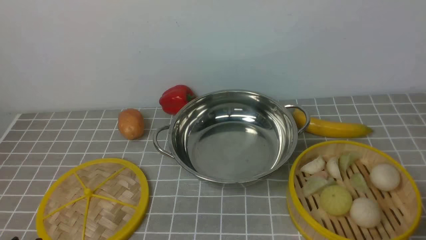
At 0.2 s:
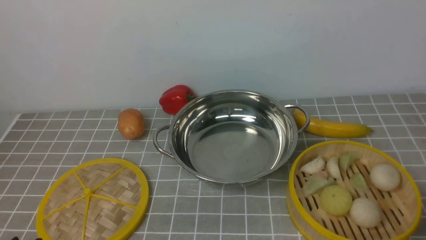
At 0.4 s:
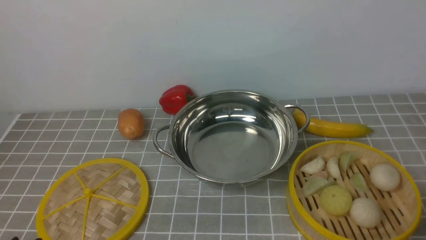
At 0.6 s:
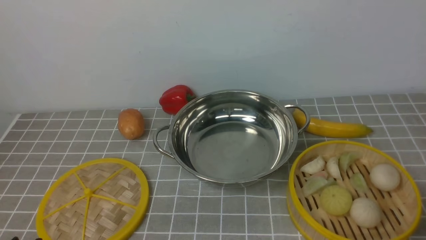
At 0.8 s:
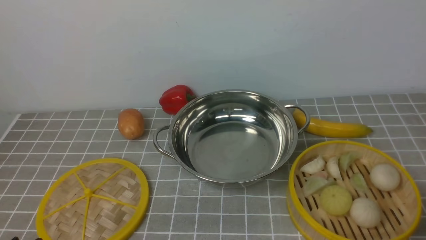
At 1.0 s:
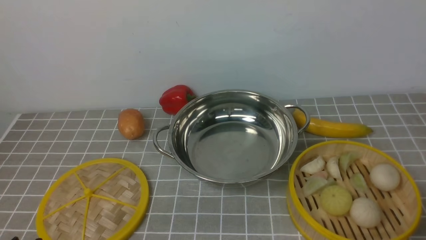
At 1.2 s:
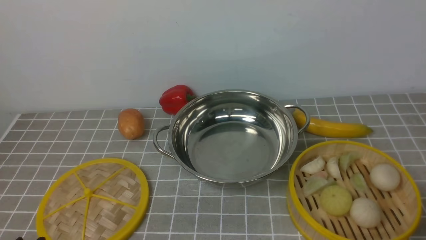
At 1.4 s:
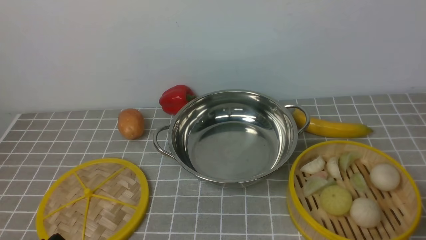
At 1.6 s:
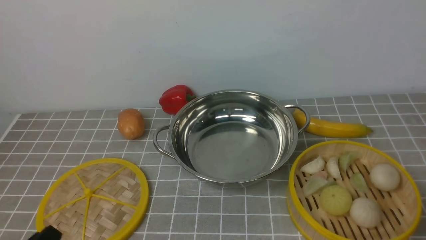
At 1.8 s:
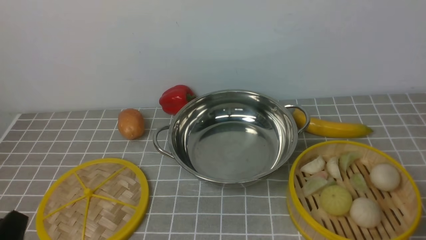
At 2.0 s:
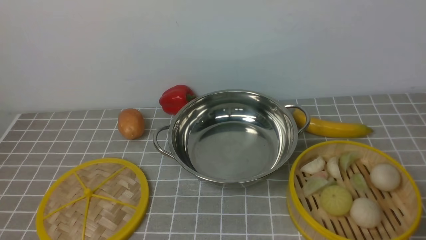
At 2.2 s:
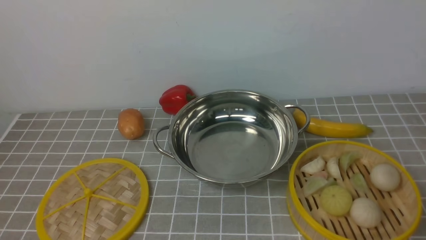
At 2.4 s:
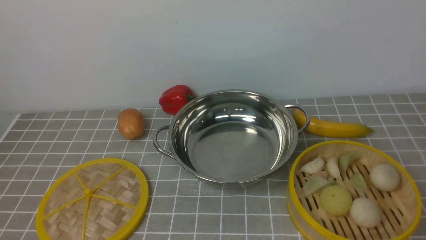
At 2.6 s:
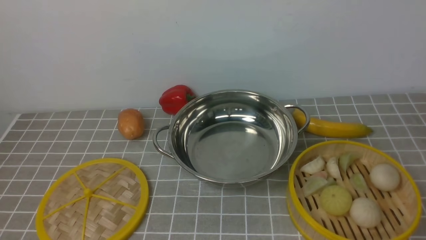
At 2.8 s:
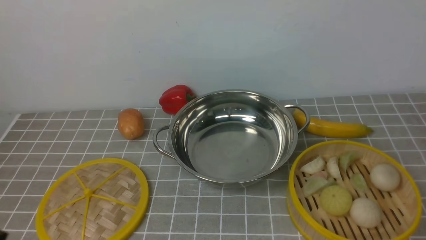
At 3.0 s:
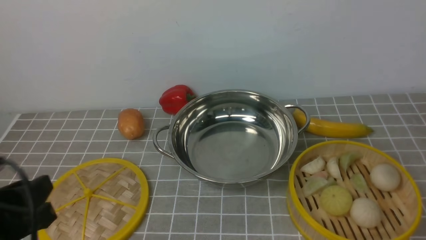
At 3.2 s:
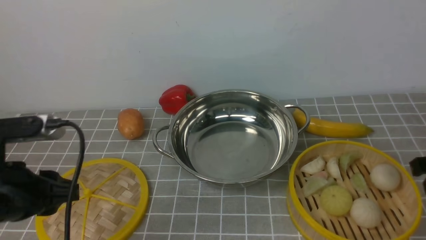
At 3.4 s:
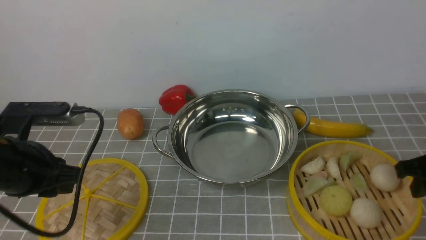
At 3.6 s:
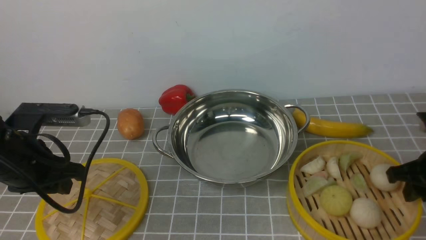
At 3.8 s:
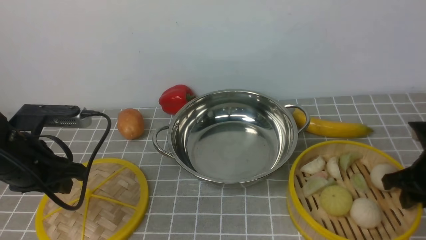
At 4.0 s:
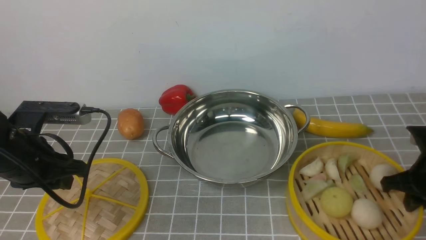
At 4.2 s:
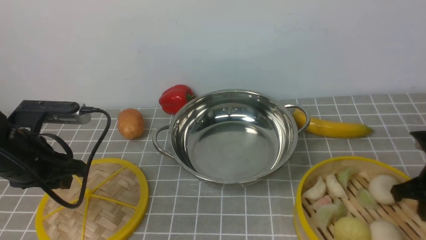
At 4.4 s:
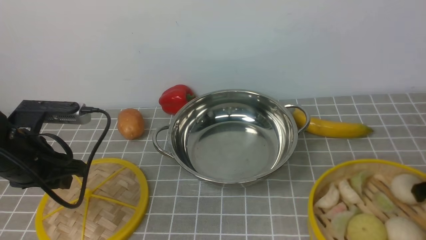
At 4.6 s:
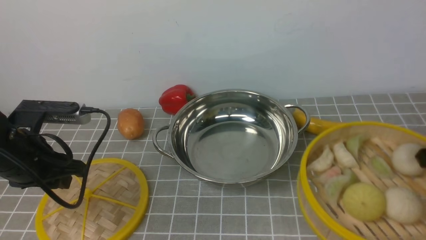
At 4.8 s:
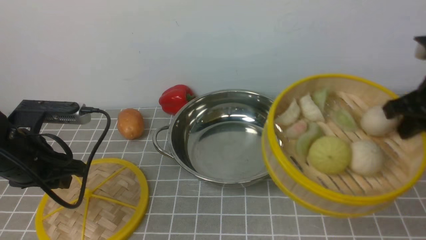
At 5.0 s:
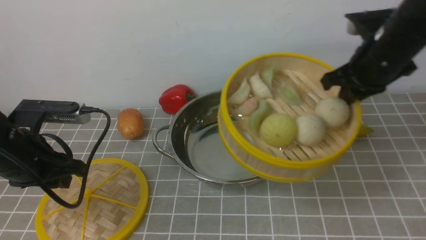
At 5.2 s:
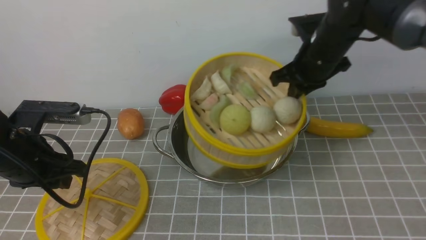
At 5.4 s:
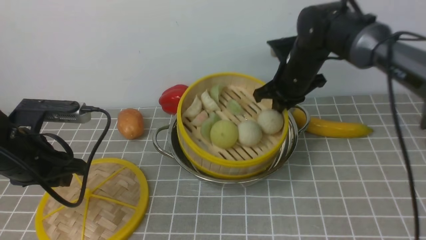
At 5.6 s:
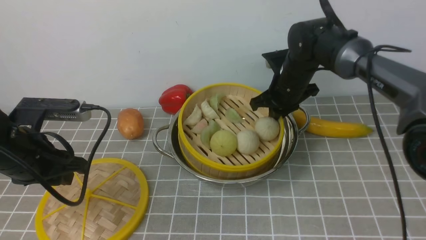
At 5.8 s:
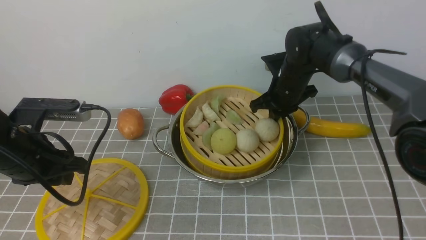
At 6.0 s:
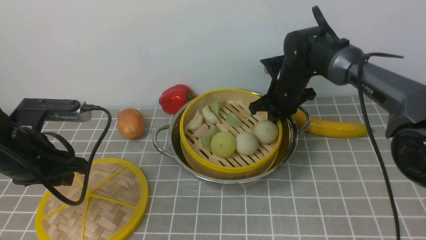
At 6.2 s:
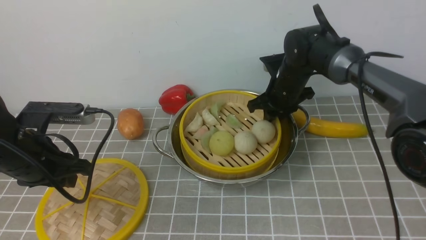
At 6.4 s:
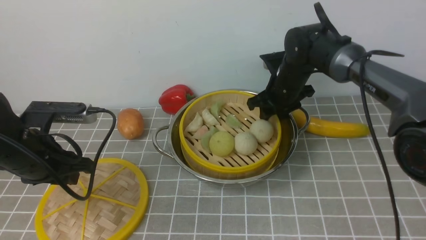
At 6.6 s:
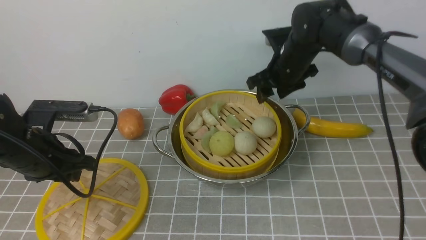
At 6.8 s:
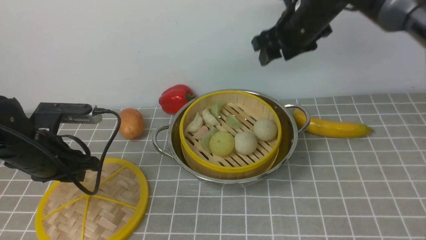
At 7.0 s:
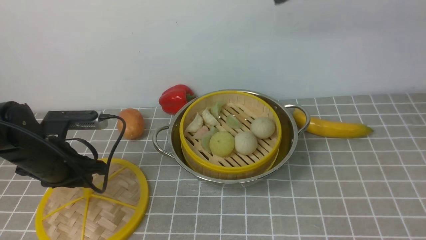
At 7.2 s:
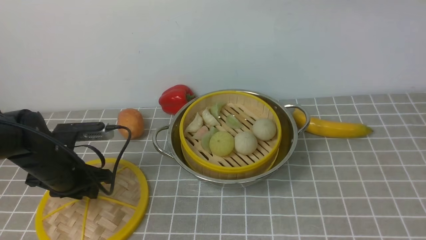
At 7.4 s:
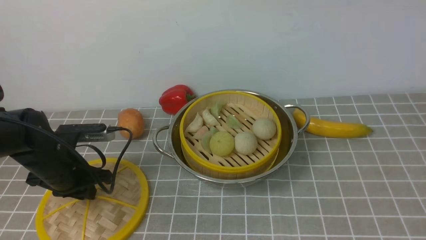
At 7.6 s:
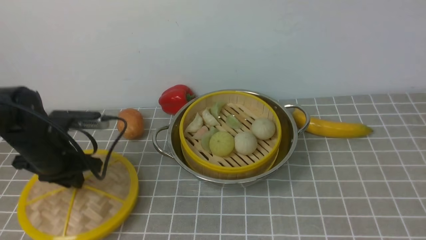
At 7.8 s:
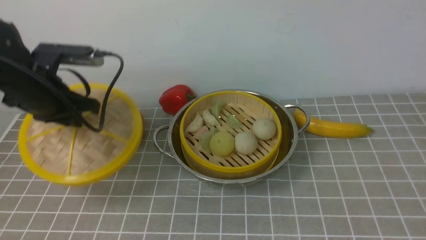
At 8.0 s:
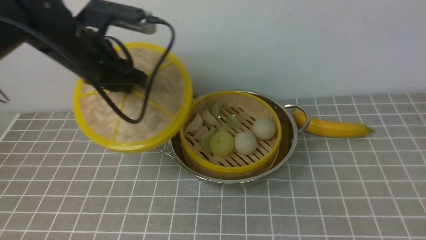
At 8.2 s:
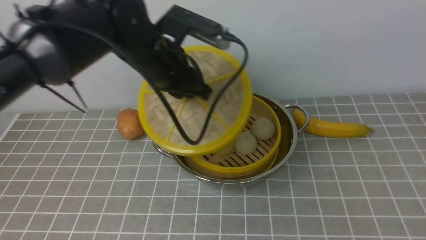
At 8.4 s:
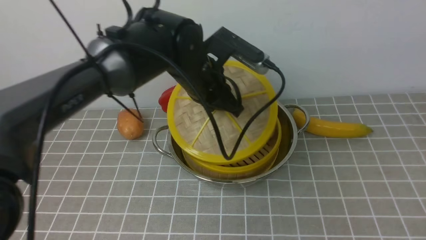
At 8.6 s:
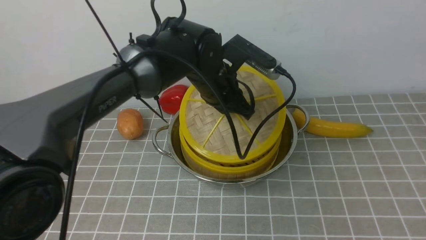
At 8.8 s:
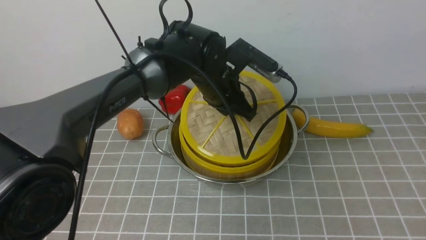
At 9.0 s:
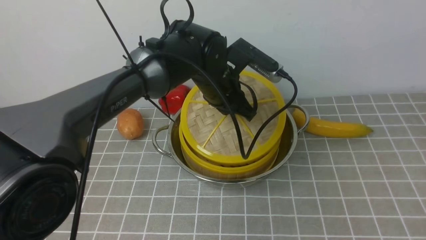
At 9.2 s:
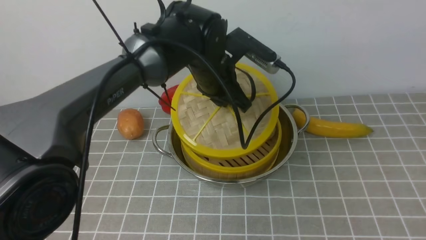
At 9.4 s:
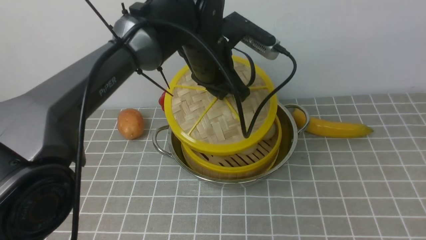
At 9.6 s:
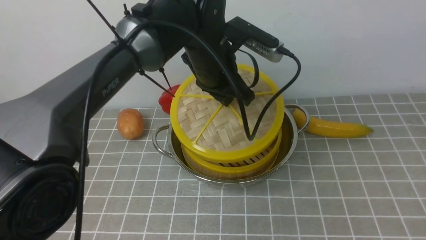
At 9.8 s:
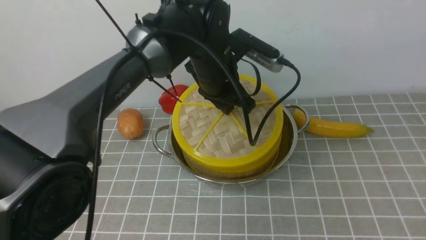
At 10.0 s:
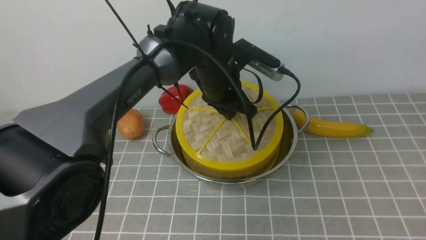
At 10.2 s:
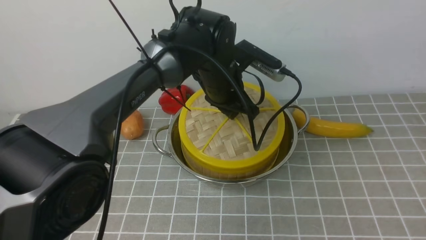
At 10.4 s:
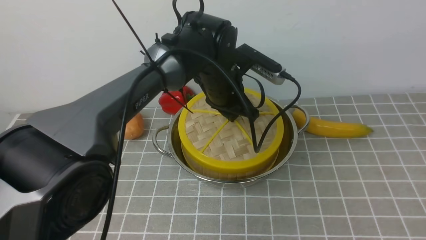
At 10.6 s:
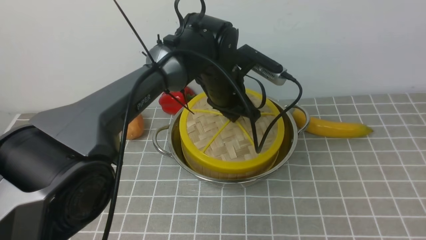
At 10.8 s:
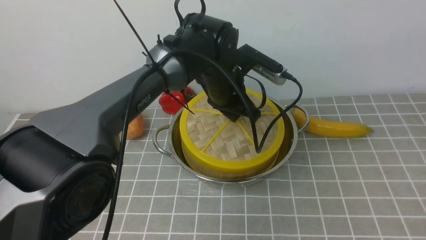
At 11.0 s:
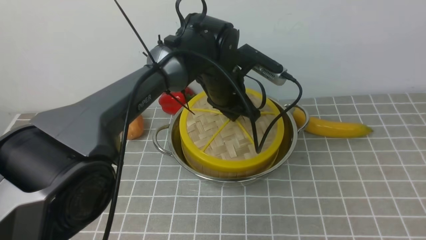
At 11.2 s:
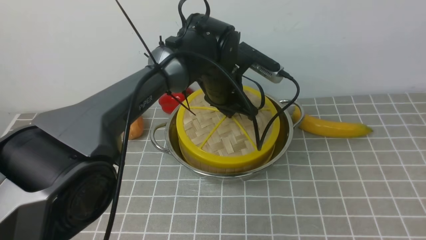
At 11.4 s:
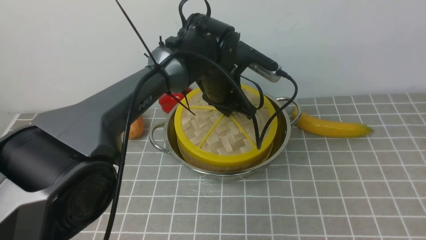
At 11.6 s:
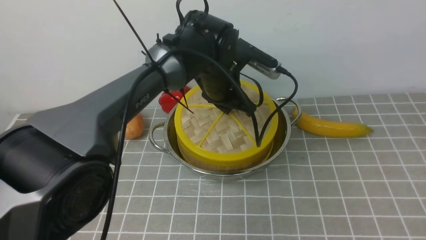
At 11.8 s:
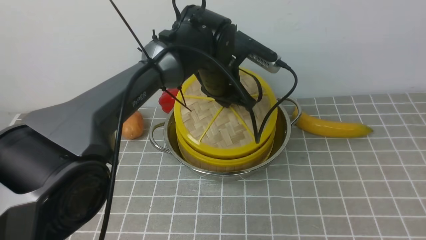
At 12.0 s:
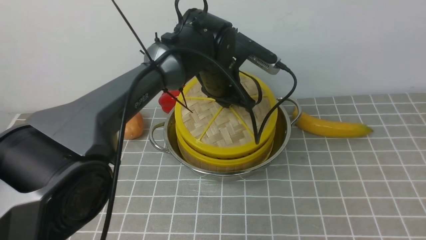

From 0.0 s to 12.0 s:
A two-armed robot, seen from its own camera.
Task of the whole recording: place the steamer in the pot on the grey tablecloth, and put the lid on the steamer.
Step, from 0.0 s to 4.2 s: use the right arm to lift the steamer closest to it.
Step, from 4.4 s to 6.4 s: use the right arm to put the steamer into the iron steamer pot in the middle.
From 1.6 s to 3.0 s: The left gripper shifts roughly 10 cm upward.
From 3.0 s to 4.4 s: The right gripper goes roughly 15 cm downward and forward, and closes up. Meanwhile the left gripper is displaced forward by about 15 cm.
From 4.4 s to 6.0 s: The right gripper shifts about 30 cm forward and to the left.
From 6.0 s to 7.6 s: The left gripper goes roughly 10 cm forward and downward, and closes; the right gripper shifts some 50 cm upward and backward, and opens its fingers.
From 7.6 s to 9.0 s: The right gripper heads backward, covering approximately 10 cm. Meanwhile the left gripper goes some 25 cm to the right.
From 10.4 s to 12.0 s: The grippers stay close to where they were, moving slightly.

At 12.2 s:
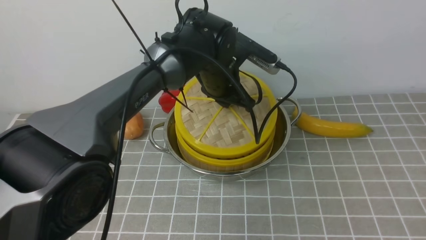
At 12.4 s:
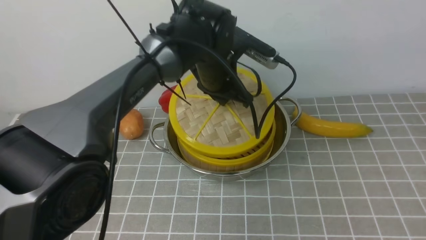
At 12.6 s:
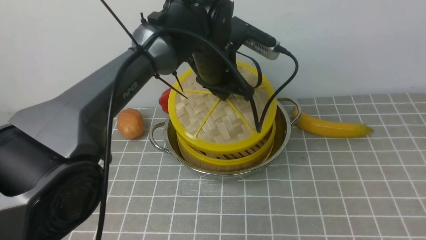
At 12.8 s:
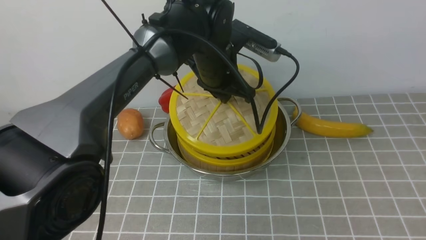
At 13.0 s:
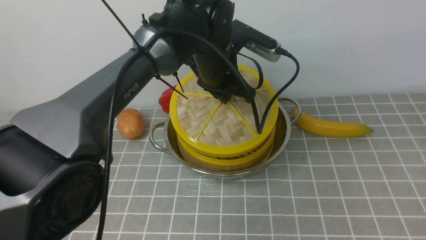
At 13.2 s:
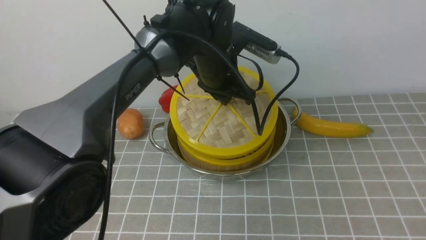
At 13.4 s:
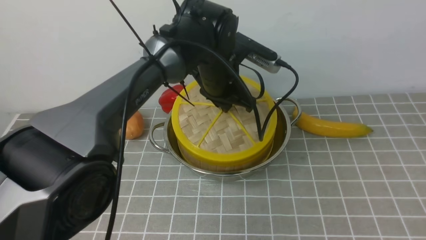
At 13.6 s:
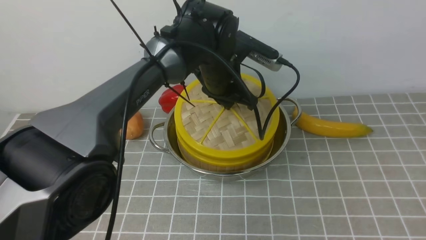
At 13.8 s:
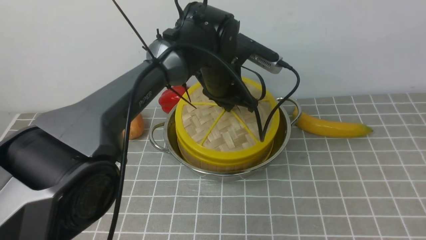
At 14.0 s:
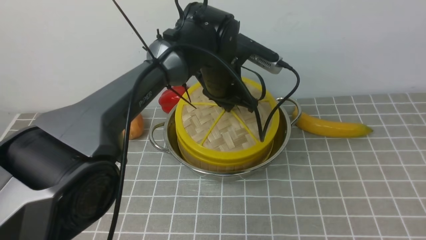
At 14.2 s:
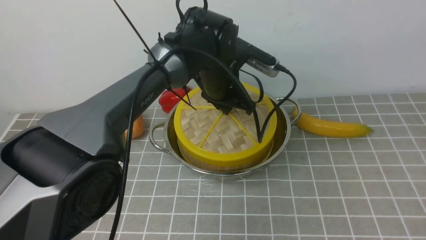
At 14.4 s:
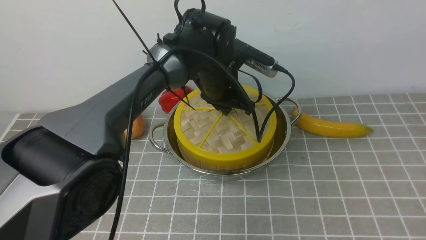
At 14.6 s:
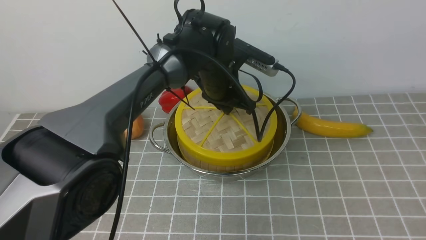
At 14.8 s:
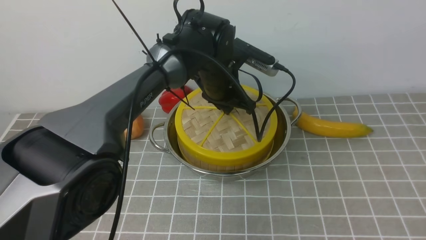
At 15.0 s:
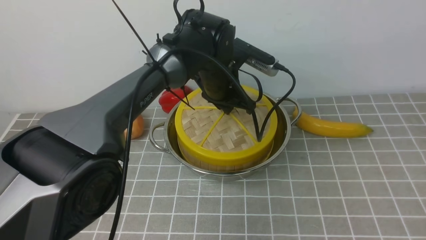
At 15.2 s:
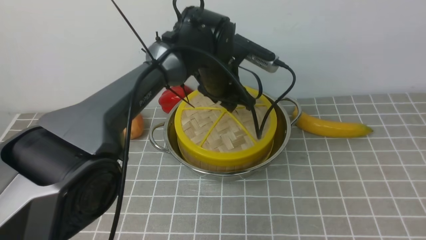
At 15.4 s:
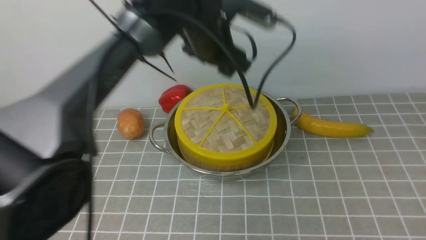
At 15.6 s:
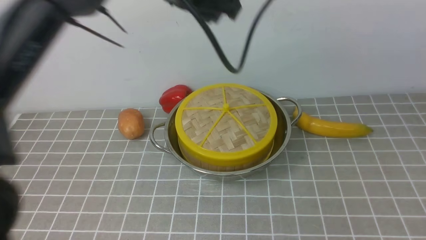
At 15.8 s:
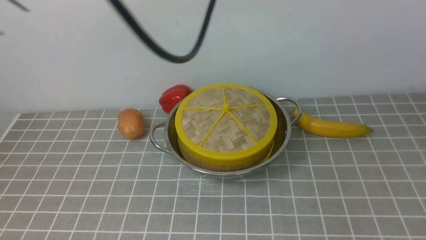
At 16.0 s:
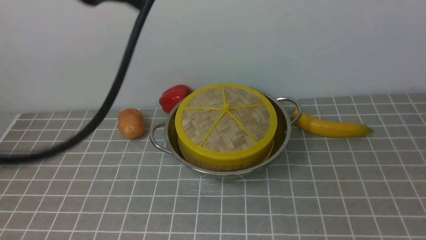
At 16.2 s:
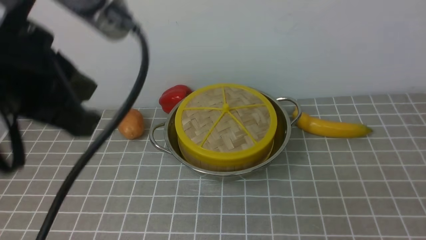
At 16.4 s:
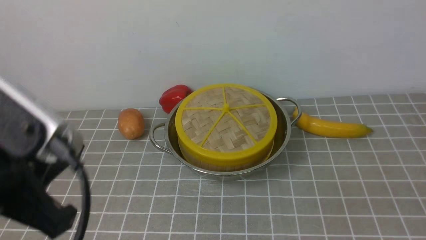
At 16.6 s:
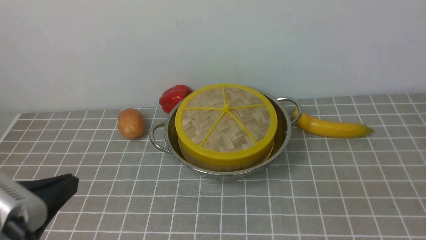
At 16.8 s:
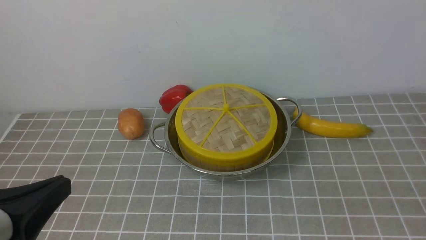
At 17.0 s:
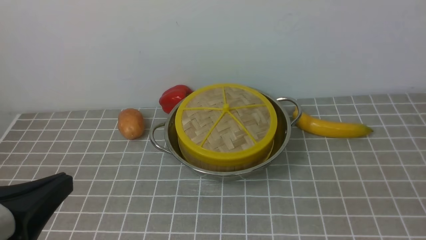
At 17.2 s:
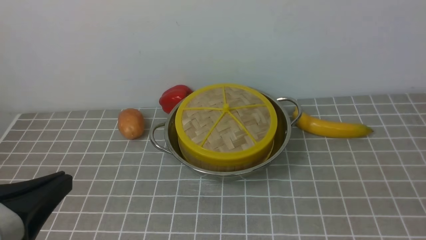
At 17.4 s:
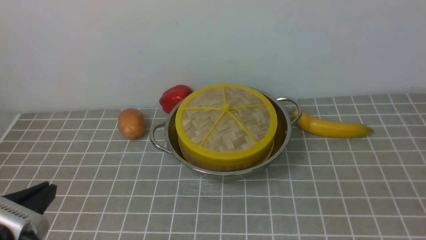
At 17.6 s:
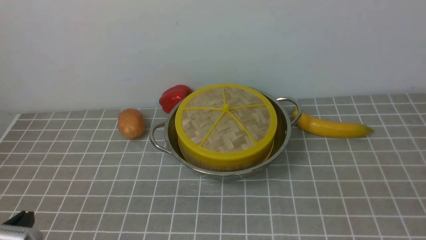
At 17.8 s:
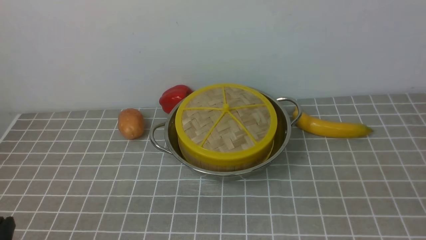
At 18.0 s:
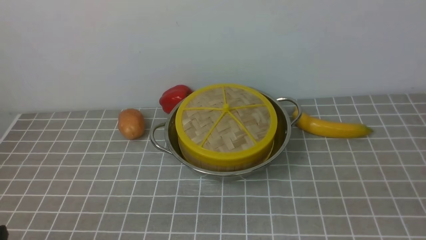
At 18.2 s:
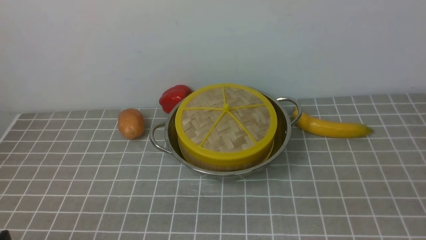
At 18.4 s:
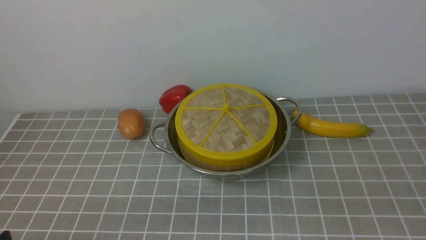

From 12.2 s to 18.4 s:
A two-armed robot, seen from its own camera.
Task of the whole recording: place the steamer in the pot on the grey tablecloth, and put the lid on the steamer.
Step, from 12.2 s to 15.2 s: use the left arm to place the steamer lid on the steamer.
From 12.2 s to 13.8 s: There are only small adjustments of the grippers.
From 13.8 s to 15.4 s: The left gripper heads upward, covering about 5 cm, and opens up.
From 15.4 s to 16.8 s: The left gripper moves backward and to the left, approximately 40 cm, and closes up. The right gripper moves downward, about 25 cm, and closes.
From 16.8 s to 18.4 s: The left gripper goes some 15 cm downward, and opens.
